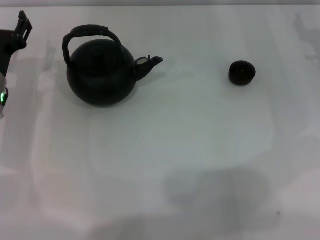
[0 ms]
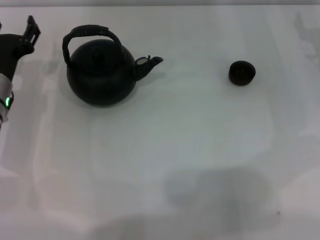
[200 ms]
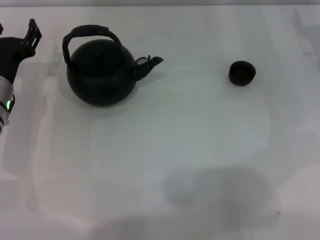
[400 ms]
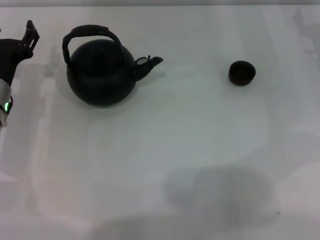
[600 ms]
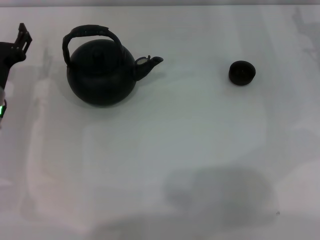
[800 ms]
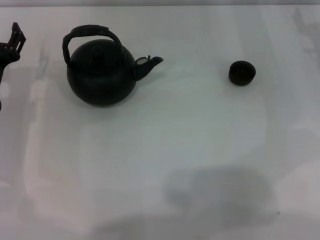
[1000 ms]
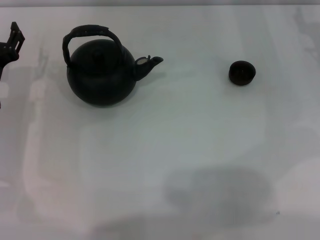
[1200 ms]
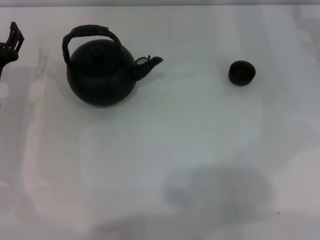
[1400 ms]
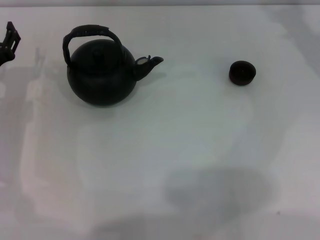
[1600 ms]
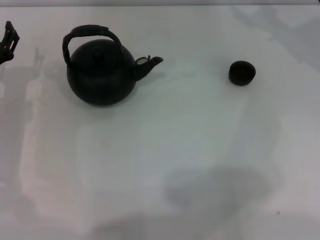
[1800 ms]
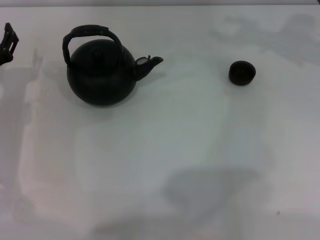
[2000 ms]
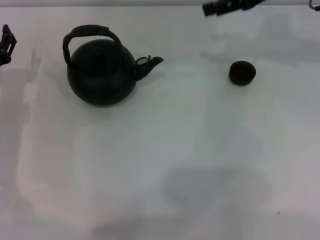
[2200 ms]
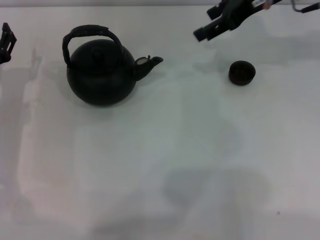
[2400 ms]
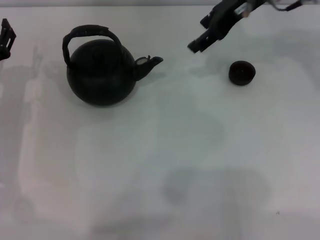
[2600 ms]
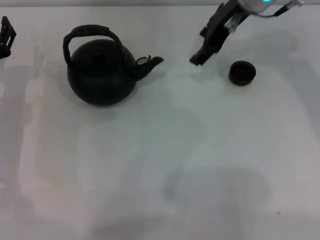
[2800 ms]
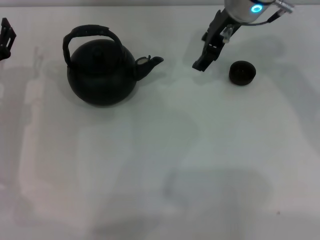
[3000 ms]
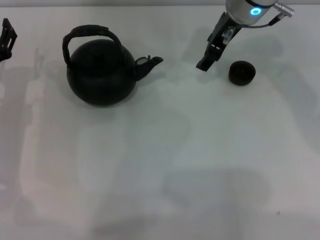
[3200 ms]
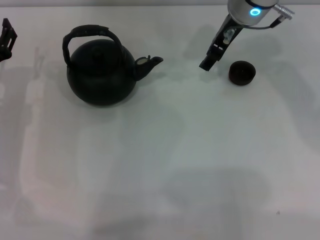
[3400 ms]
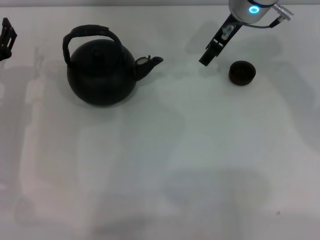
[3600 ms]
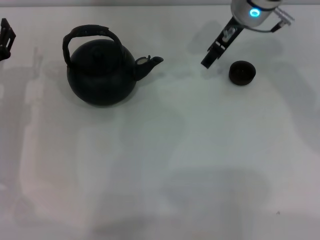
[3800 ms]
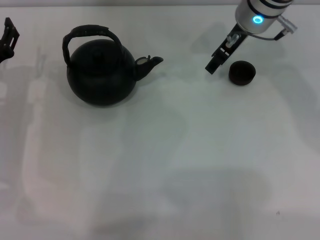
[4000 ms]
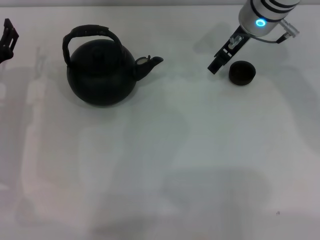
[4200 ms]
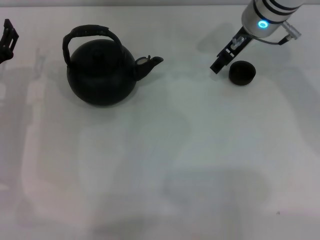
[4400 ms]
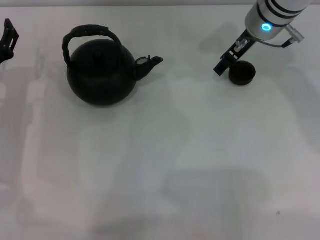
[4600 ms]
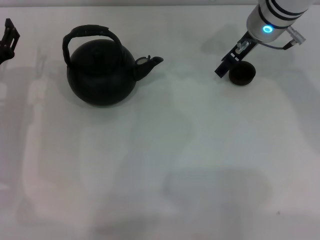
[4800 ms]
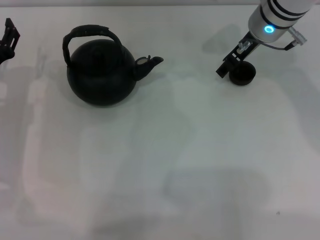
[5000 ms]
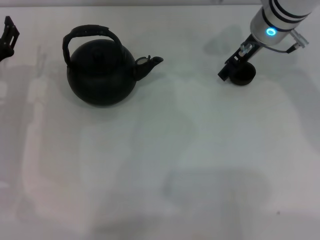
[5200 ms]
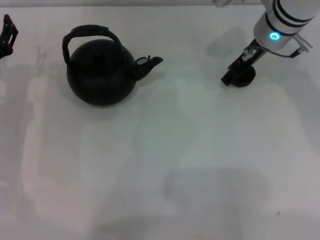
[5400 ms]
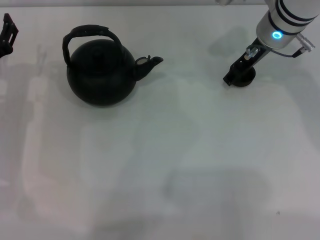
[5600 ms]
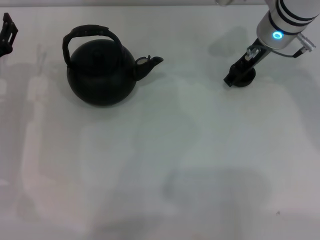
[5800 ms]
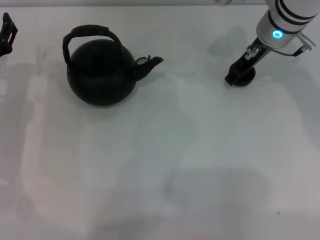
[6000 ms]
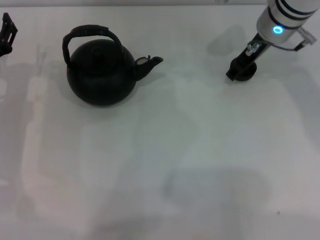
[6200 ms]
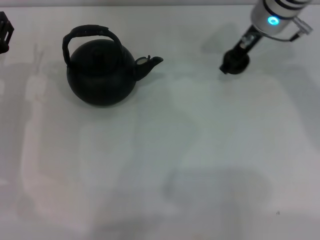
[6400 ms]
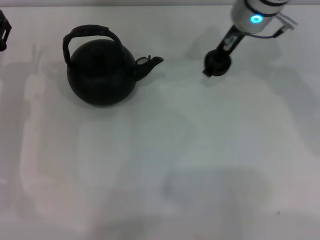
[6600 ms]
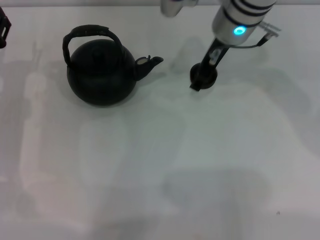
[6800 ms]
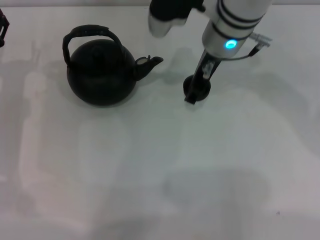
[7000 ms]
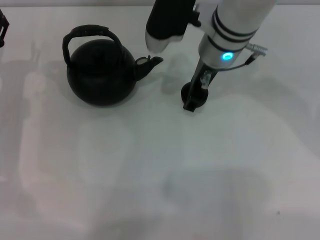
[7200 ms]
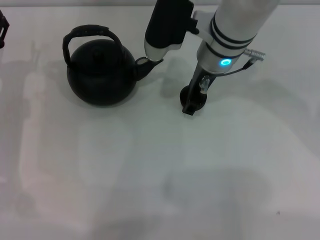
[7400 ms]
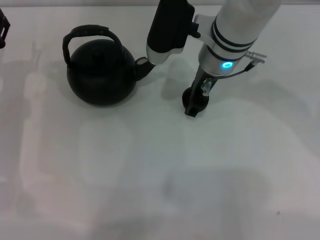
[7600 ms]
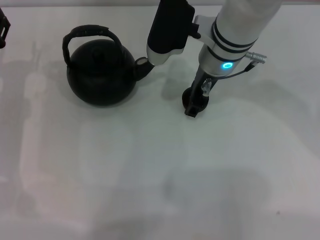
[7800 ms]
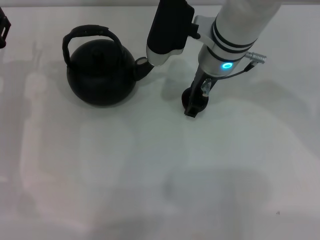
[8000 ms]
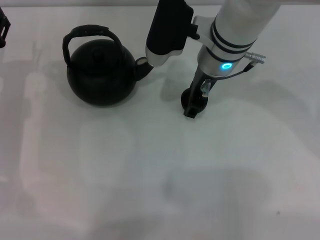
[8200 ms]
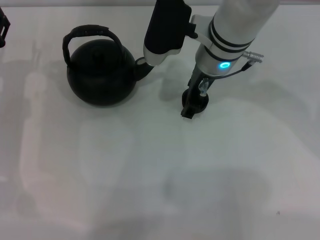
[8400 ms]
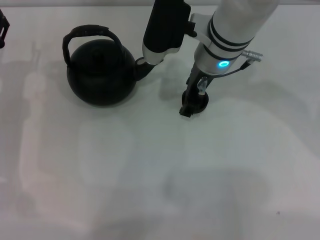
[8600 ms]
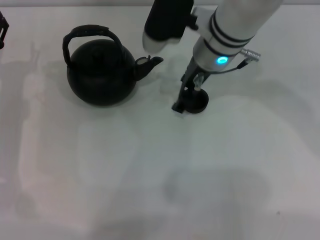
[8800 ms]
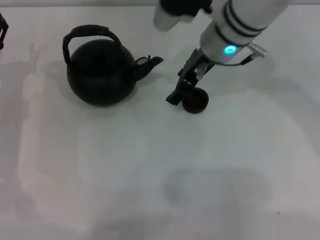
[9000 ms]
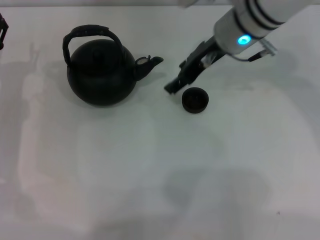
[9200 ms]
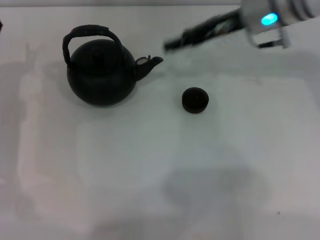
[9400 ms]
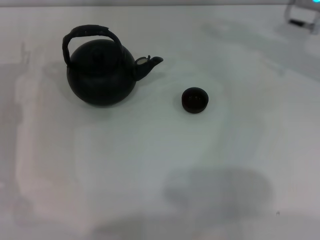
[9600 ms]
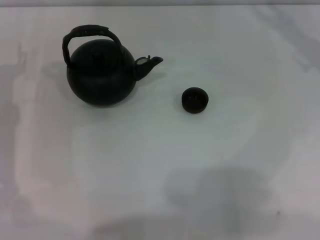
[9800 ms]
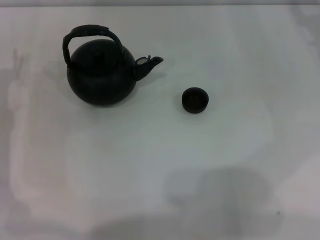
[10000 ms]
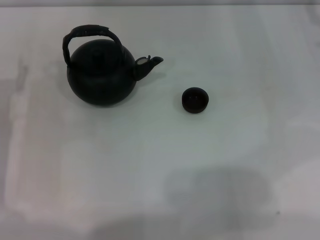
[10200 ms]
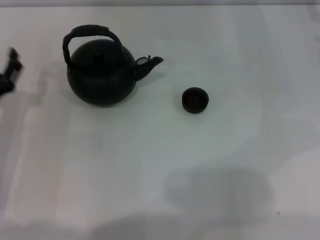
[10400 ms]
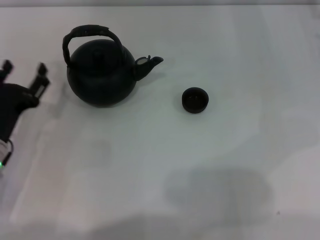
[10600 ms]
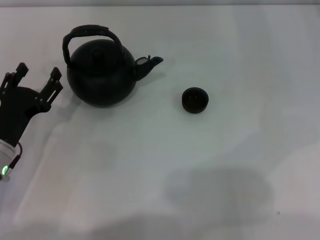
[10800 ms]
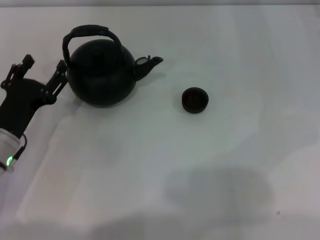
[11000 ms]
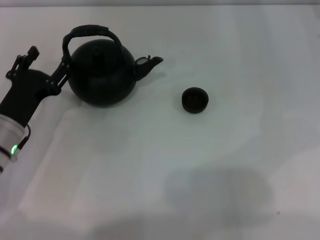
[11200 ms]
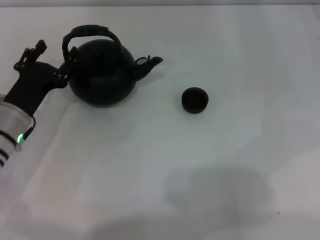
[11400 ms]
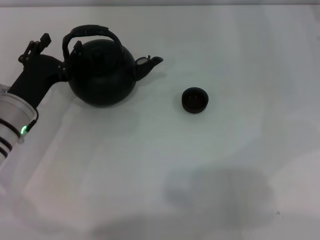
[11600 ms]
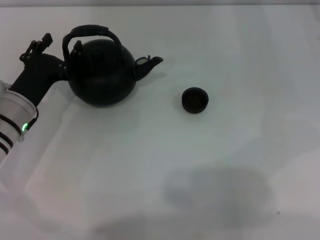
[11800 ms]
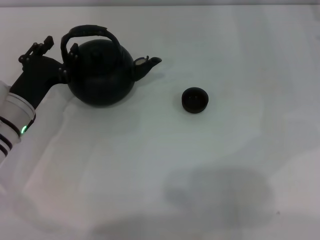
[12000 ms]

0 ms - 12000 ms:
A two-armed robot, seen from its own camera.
Task of the whole recording: Grasp the handle of the teapot with one hand and pour tea into the teacup.
Step, 0 ms - 6400 ms: Pick up the teacup with the right gripper.
Step, 6600 ms - 9200 ms: Place the teacup in the center of view with the right gripper.
1600 ms - 3000 ms: The right gripper is displaced to the left by about 20 cm.
3000 ms - 4400 ms: The right gripper moves about 5 cm.
4400 ms - 6000 ms: There are only small adjustments of the grippers.
6000 ms - 7600 ms: The right gripper shifts some 10 cm to the left.
7600 ms - 9000 ms: The grippers move only a little.
9000 ms - 10400 ms: The left gripper heads backward, covering about 5 cm; the right gripper travels to the right by some 25 cm.
10400 ms - 12000 ms: The left gripper is displaced to the right by roughly 5 cm.

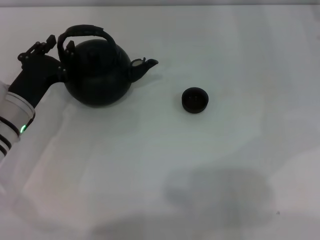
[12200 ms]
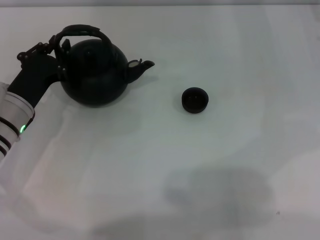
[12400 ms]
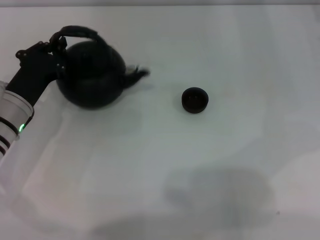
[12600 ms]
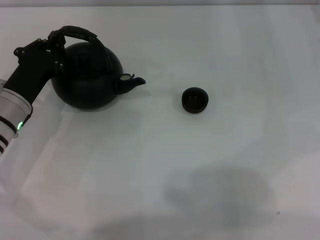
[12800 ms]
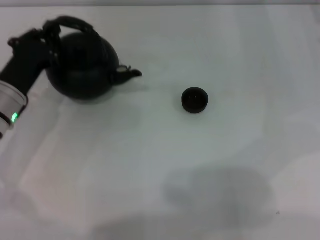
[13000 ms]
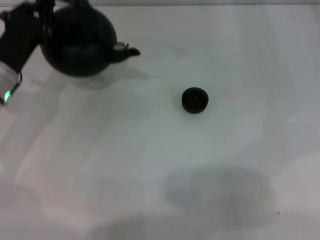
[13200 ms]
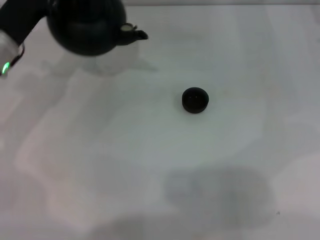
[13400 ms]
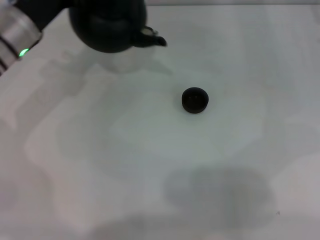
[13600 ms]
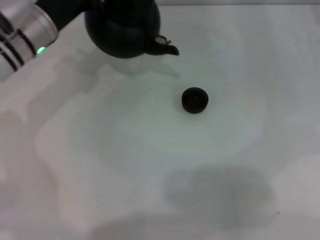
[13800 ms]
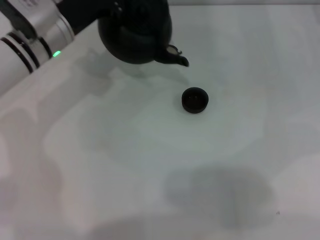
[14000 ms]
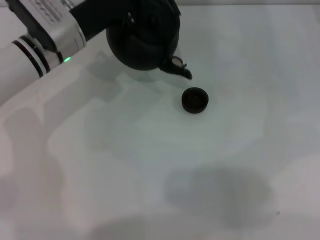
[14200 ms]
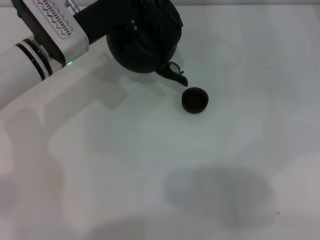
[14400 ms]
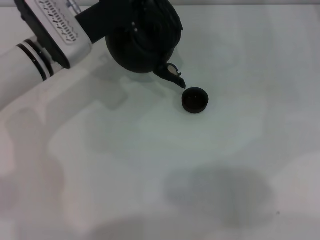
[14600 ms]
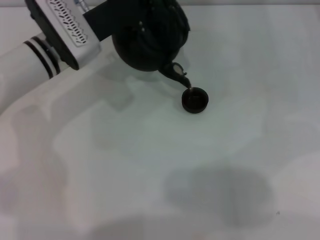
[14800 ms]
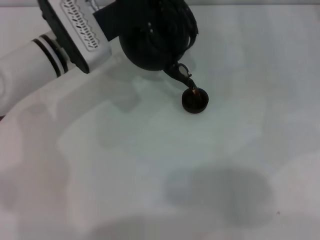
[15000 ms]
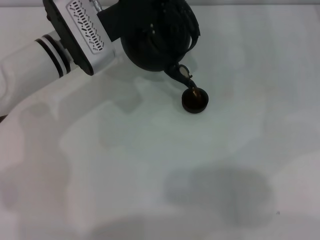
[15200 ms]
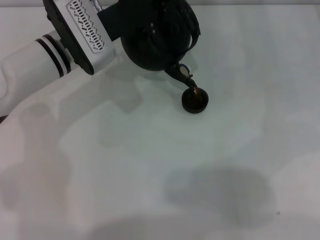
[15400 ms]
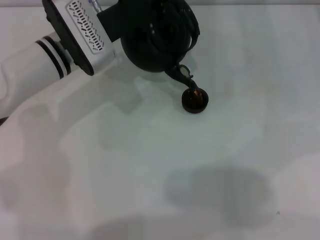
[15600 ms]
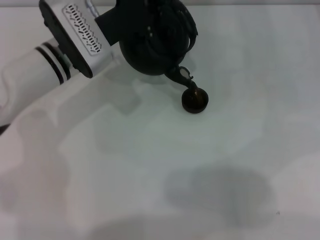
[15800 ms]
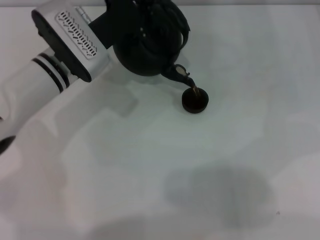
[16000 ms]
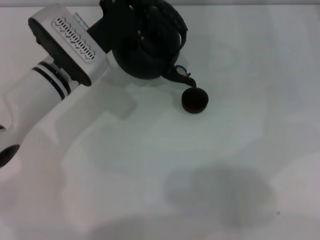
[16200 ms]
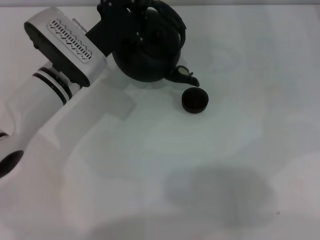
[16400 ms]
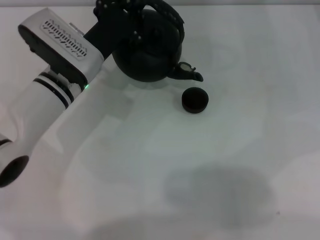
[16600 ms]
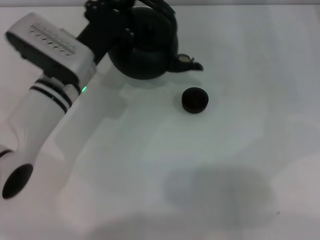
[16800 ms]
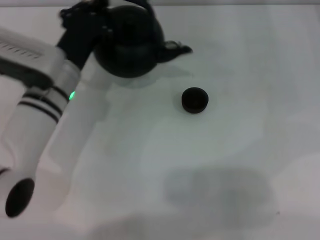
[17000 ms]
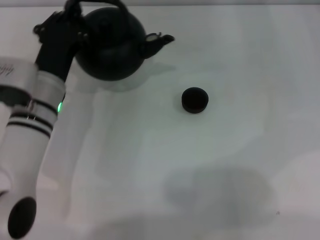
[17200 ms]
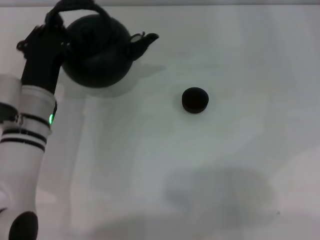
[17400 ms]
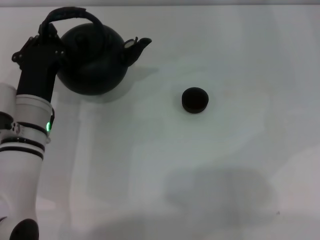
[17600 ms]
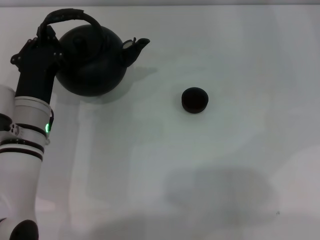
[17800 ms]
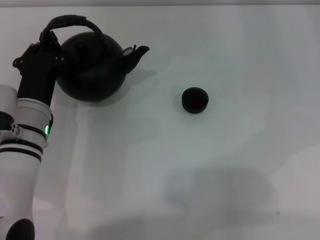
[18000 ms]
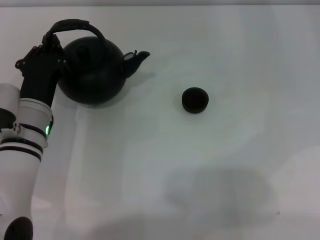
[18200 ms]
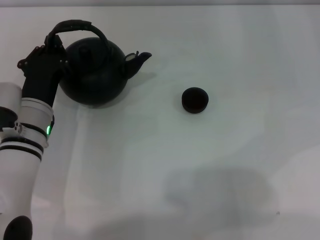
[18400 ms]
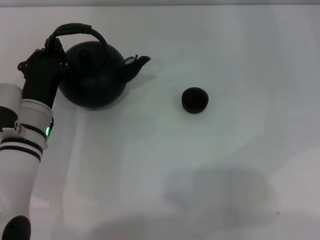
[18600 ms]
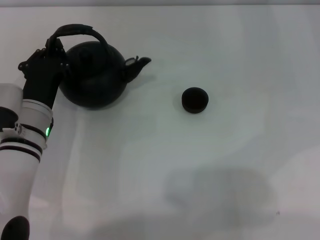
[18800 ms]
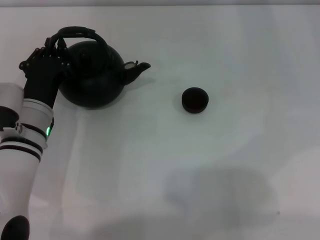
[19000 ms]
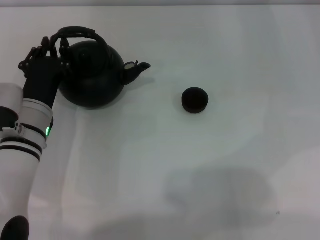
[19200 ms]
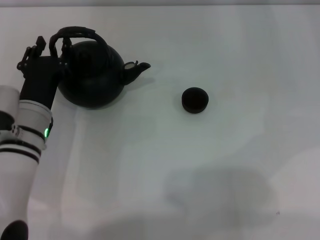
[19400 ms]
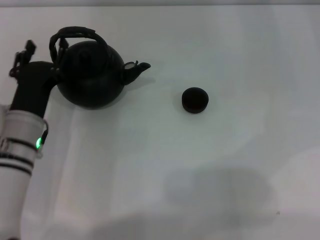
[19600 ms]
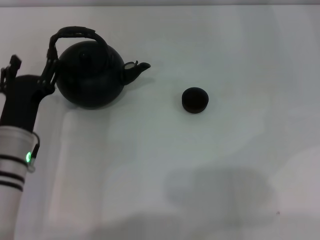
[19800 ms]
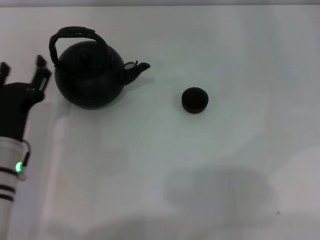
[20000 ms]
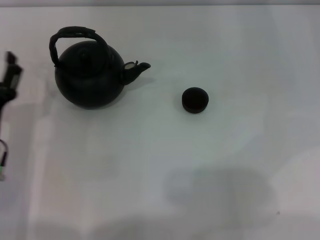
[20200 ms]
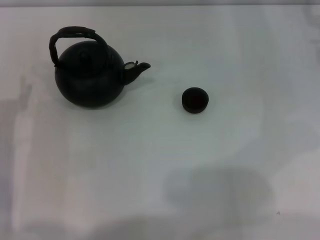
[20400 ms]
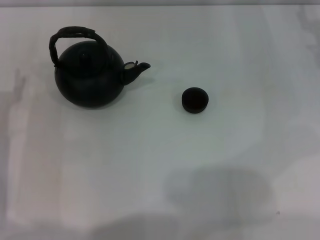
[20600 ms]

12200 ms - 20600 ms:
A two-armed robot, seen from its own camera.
Task of the whole recording: Grasp the handle of the teapot with one hand and pour tea into the teacup.
Step, 13400 ms - 16400 ms: Pour tea into the teacup with the left gripper.
Step, 16600 ms - 19400 ms: Put down the teapot with the left gripper.
12200 ms - 13600 ms: The left gripper is displaced upward and forward by some 10 cm, and closes its fingers.
13600 ms - 15000 ms: The left gripper travels to the right by approximately 10 cm.
15000 ms - 16400 ms: The grippers stay close to where they were, moving slightly.
16400 ms - 17800 ms: The left gripper shifts approximately 10 cm backward.
17800 ms - 19200 ms: The grippers move only a little.
19200 ms - 20600 ms: The left gripper moves to the left, some 10 cm, and opens up.
